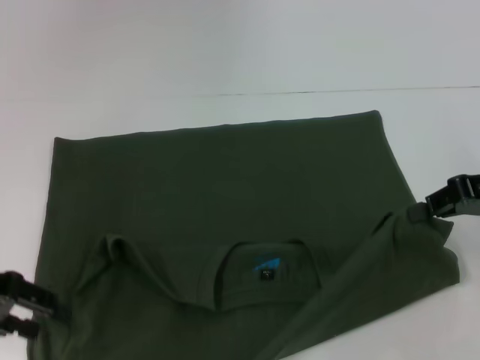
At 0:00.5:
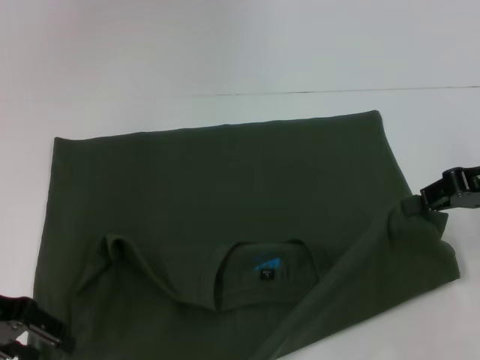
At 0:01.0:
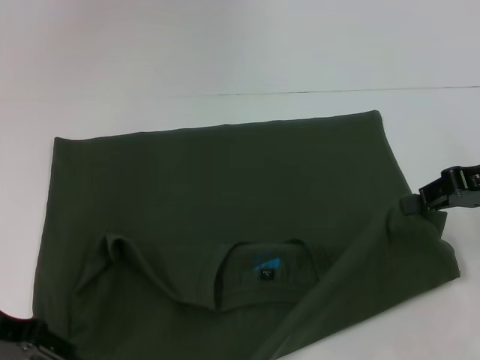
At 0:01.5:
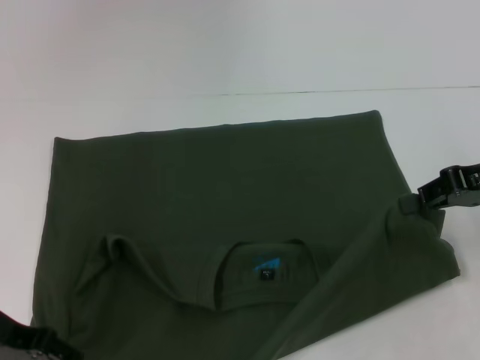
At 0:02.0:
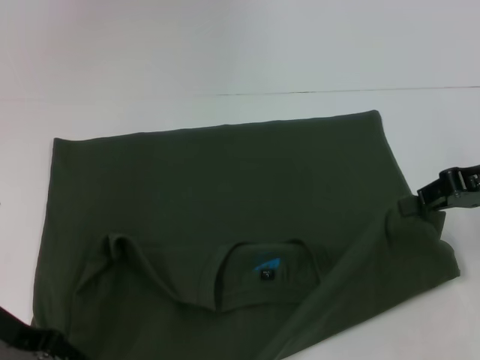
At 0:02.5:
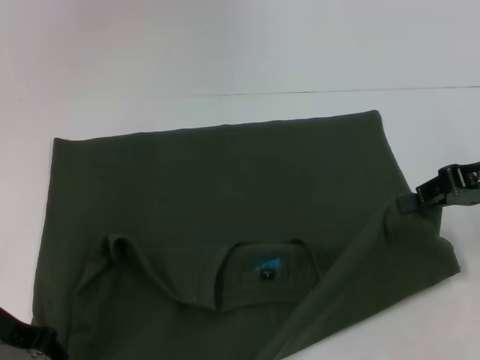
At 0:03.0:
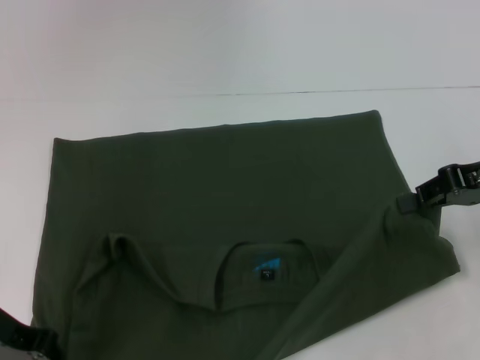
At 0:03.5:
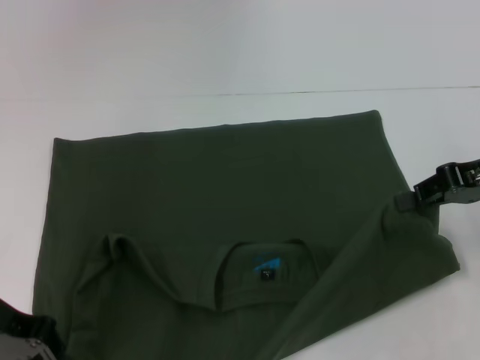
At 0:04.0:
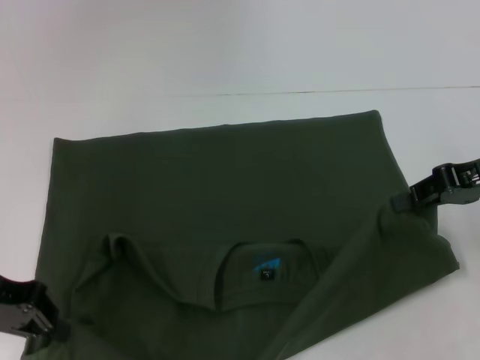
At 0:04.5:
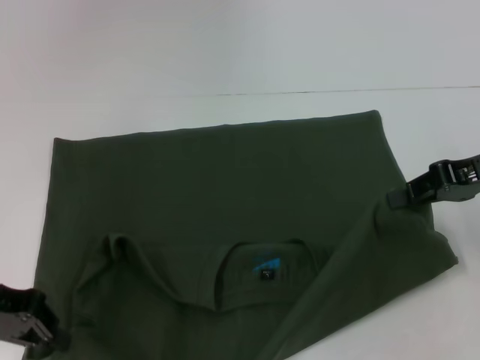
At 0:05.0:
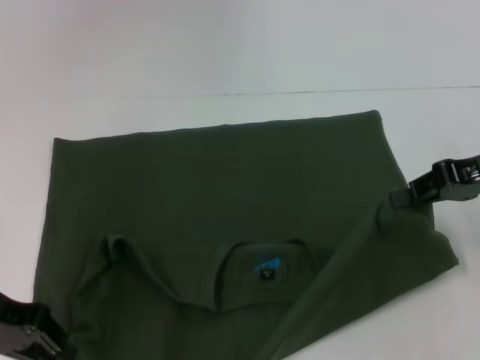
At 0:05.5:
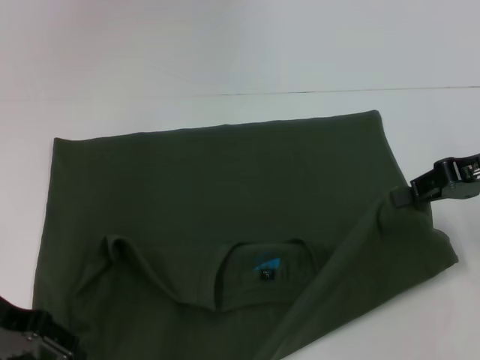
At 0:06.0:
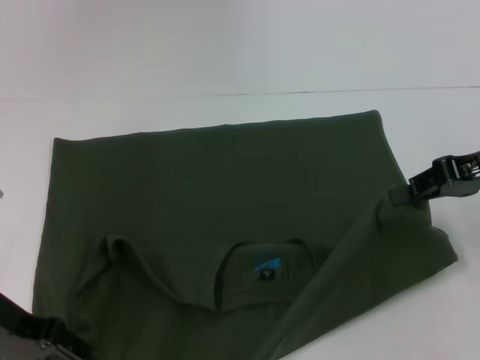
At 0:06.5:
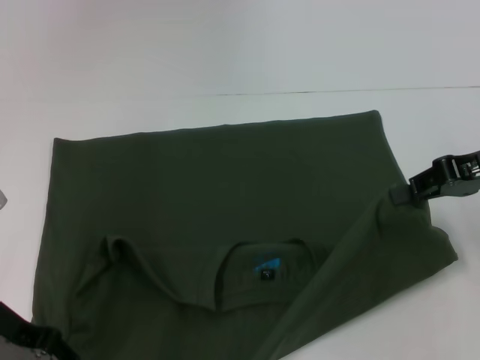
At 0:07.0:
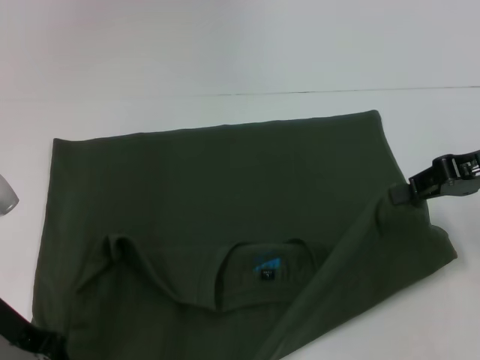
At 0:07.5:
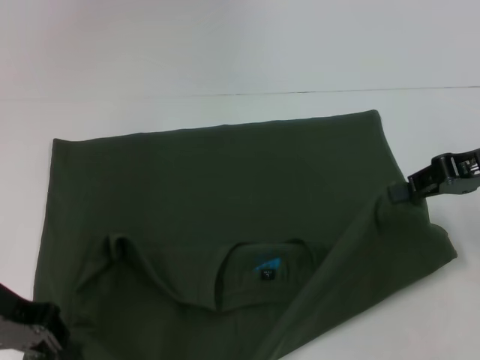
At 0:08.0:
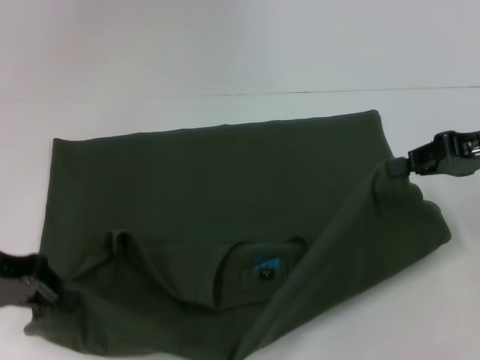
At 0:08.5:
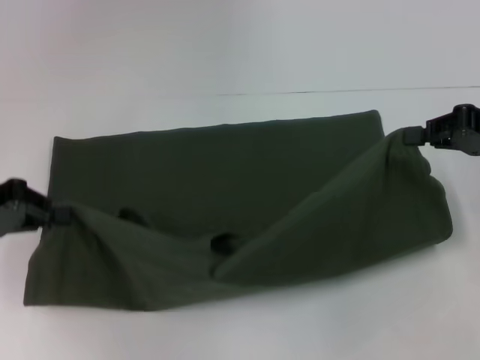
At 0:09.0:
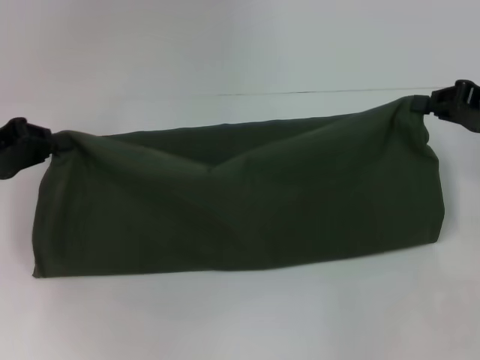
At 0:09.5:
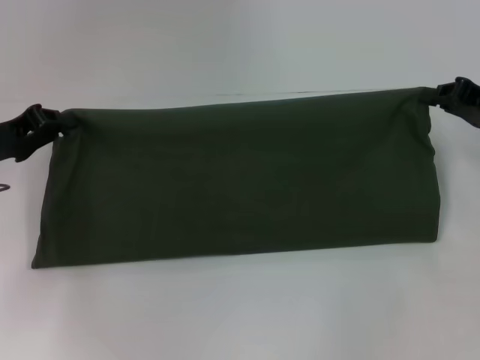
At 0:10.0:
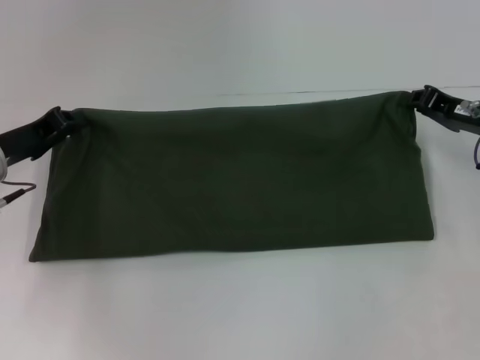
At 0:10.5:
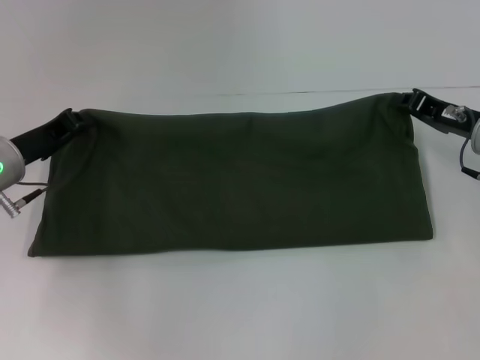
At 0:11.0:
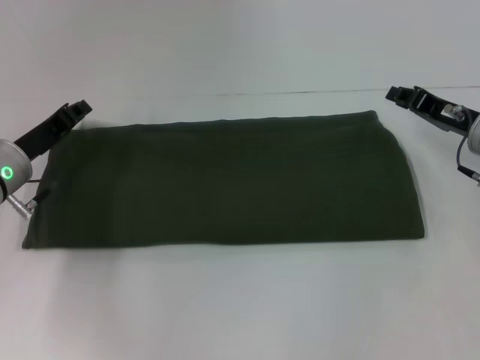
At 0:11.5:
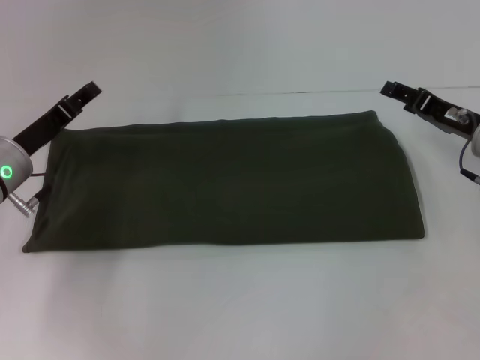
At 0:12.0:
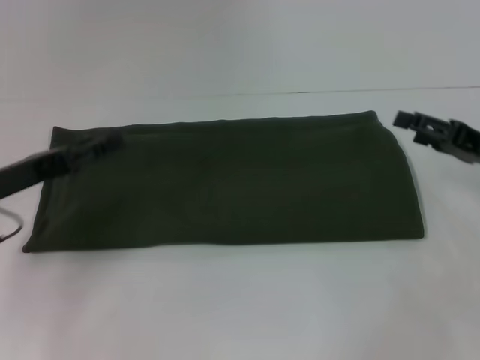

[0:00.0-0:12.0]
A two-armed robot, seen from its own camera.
Step, 0:00.0 to 0:11.0: Fold the clothes with your right hand.
0:00.0 to 0:02.0: The left gripper changes place by some 5 cm.
0:02.0 to 0:04.0: The left gripper closes.
0:04.0 to 0:06.0: The left gripper opens its fingers.
0:06.0 to 0:08.0: The left gripper closes its fingers.
0:08.0 to 0:10.0: The right gripper goes about 10 cm downward. The left gripper heads forward, covering approximately 5 cm.
0:10.0 to 0:12.0: The right gripper changes place by roughly 5 cm, and opens; the left gripper shifts about 5 cm backward, and opens its fingers.

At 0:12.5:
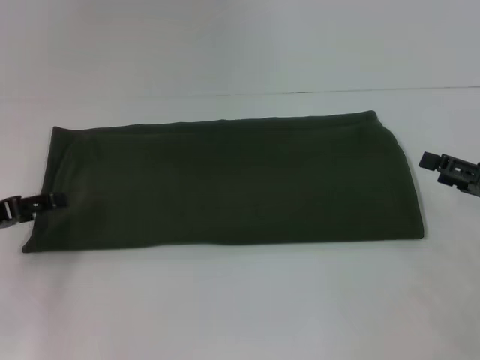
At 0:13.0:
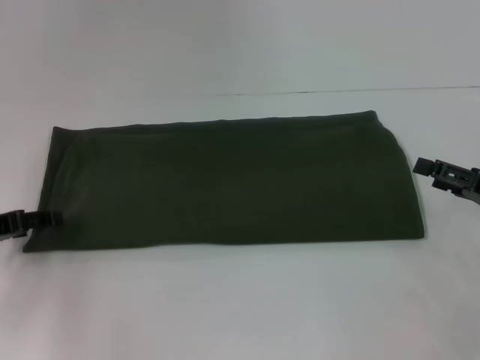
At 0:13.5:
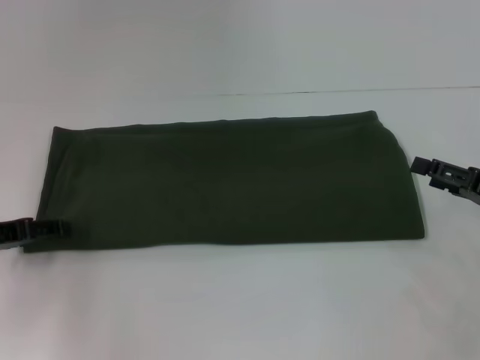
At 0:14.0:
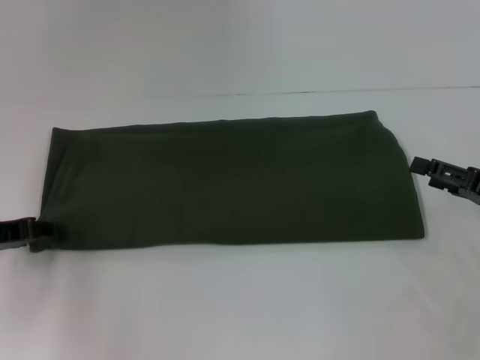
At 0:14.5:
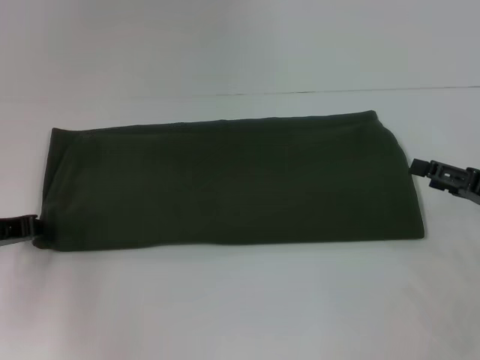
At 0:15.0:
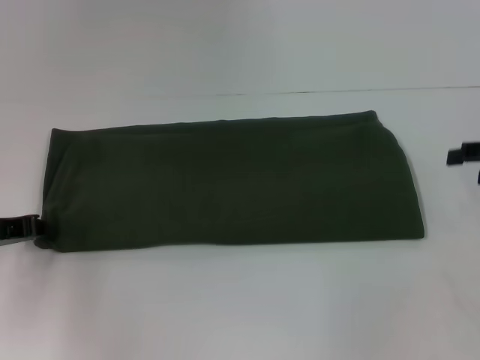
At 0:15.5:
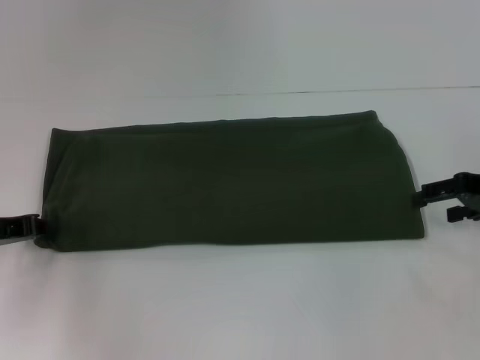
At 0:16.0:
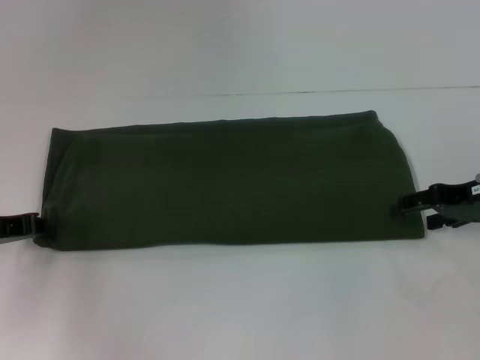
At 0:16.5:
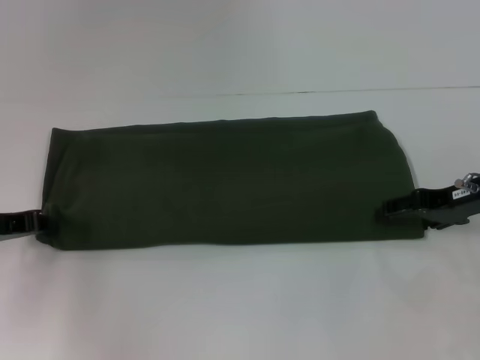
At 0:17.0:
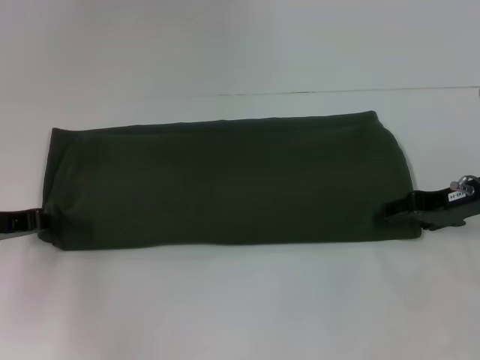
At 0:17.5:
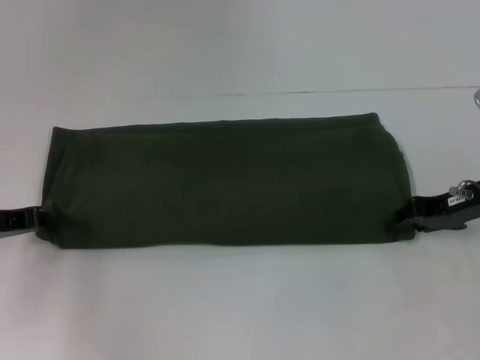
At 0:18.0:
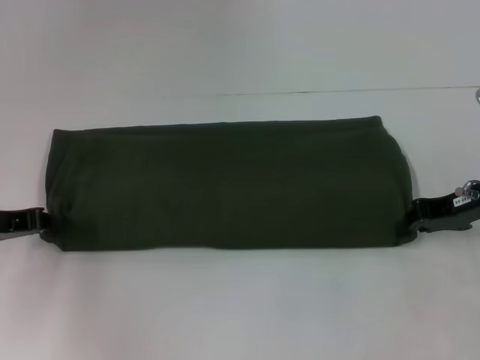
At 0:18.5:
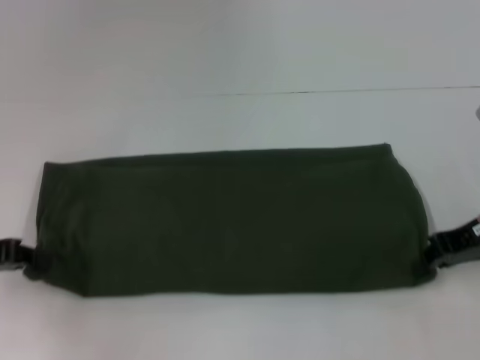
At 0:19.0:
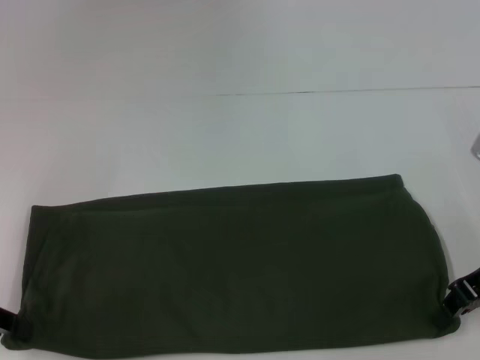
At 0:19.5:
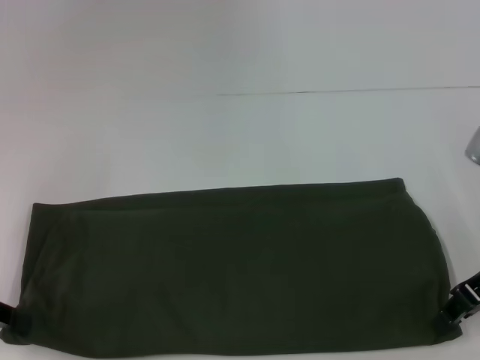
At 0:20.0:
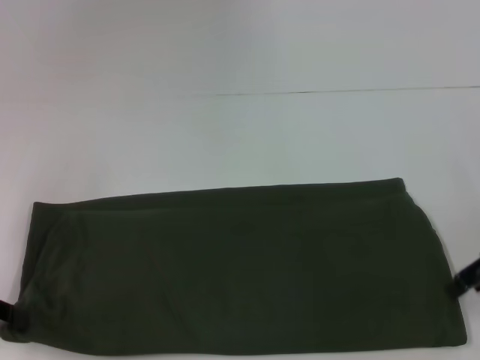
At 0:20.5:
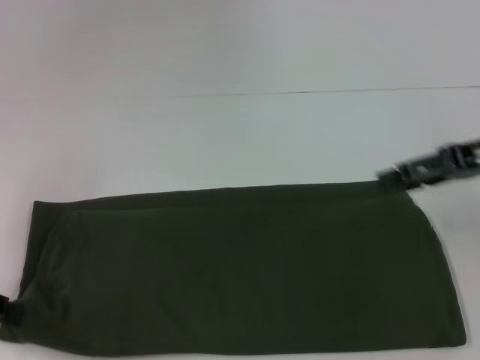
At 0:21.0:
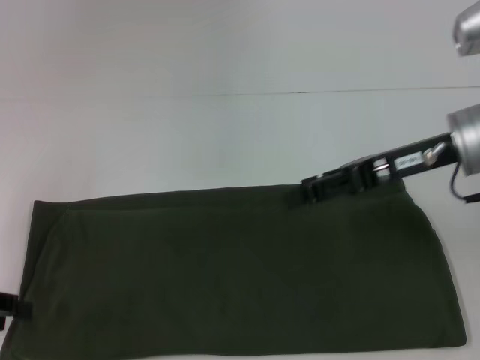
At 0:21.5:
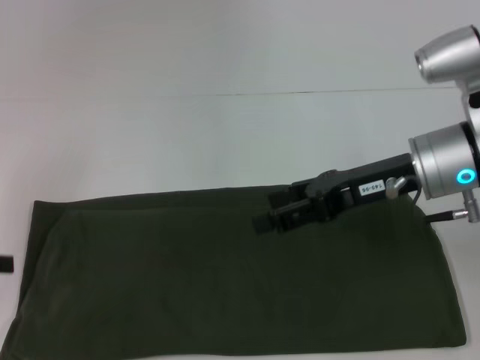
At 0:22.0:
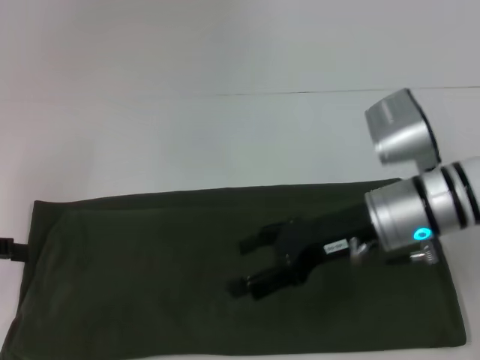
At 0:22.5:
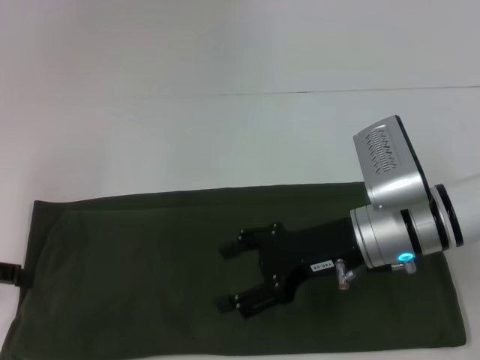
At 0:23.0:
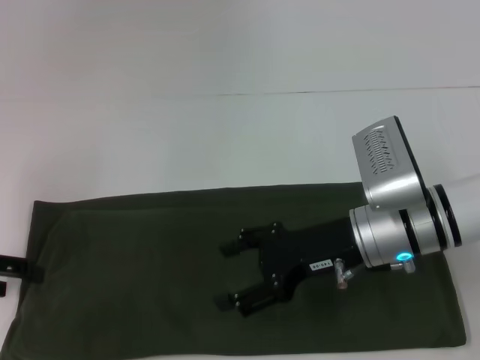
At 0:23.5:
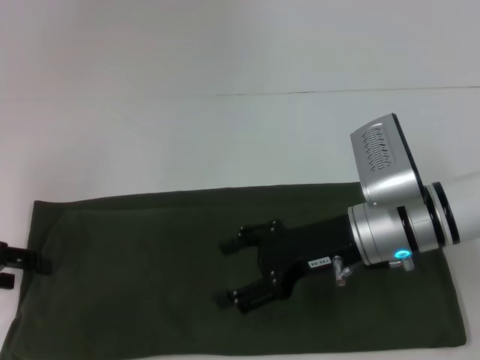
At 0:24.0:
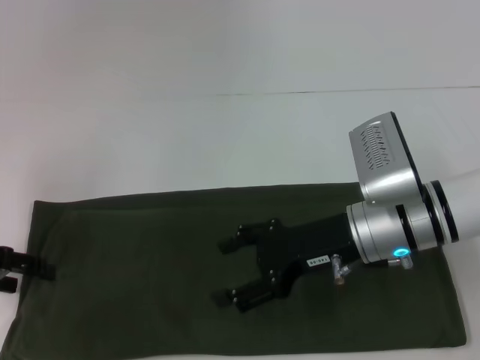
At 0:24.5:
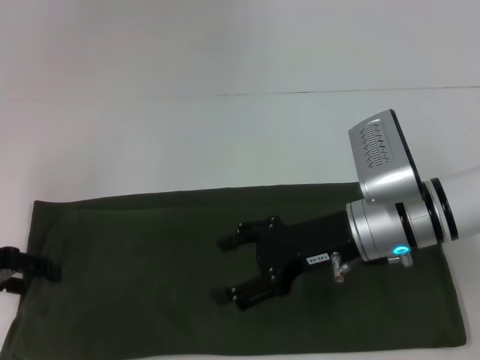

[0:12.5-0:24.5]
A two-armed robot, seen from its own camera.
0:12.5 to 0:14.5: The left gripper closes up.
0:14.5 to 0:16.5: The right gripper is displaced forward and to the left by about 10 cm.
0:16.5 to 0:18.5: The right gripper closes its fingers.
0:18.5 to 0:20.5: The right gripper is displaced upward by some 5 cm, and opens.
0:20.5 to 0:22.5: The right gripper is displaced to the left and downward by about 20 cm. Meanwhile the left gripper opens up.
0:22.5 to 0:24.5: The grippers make only small movements.

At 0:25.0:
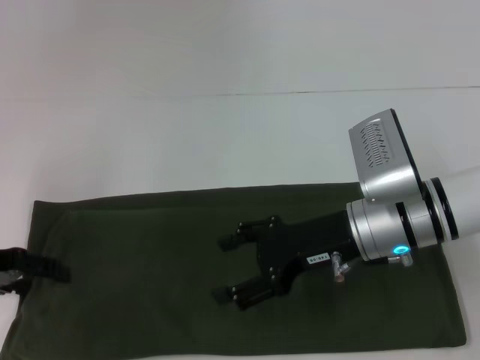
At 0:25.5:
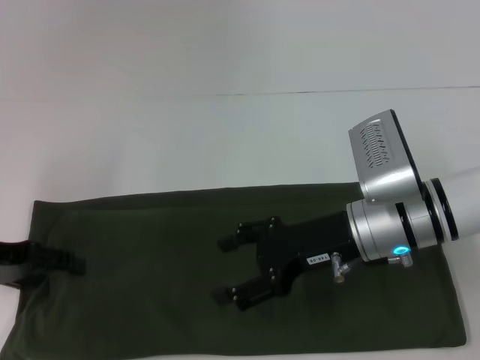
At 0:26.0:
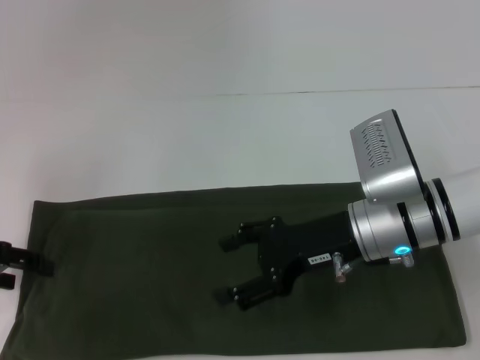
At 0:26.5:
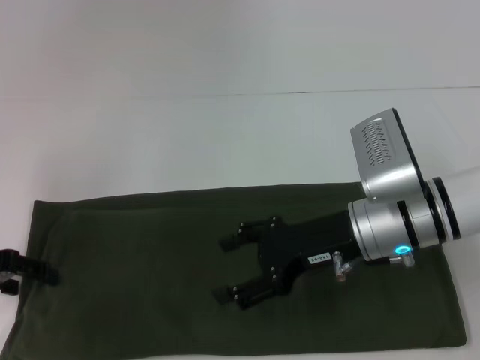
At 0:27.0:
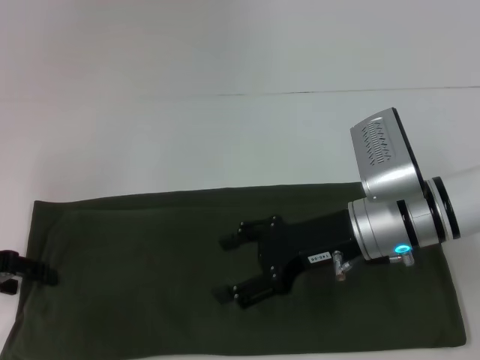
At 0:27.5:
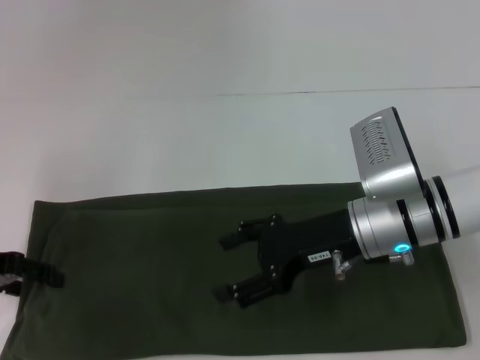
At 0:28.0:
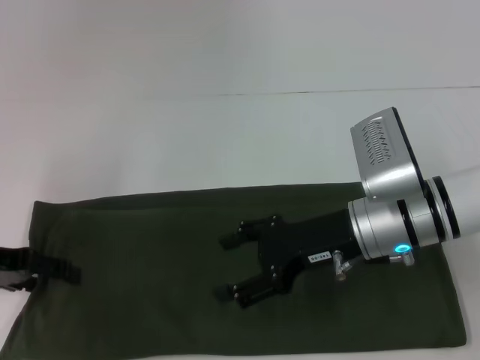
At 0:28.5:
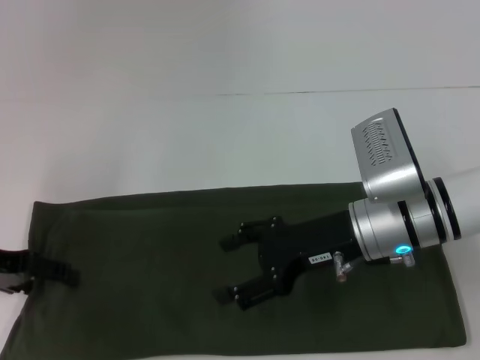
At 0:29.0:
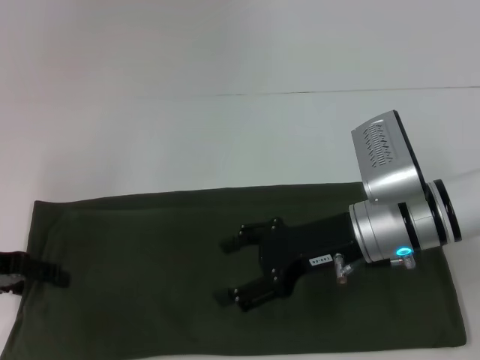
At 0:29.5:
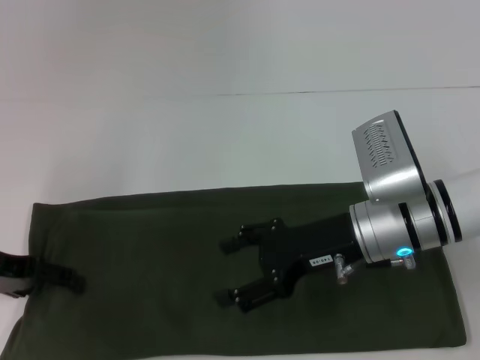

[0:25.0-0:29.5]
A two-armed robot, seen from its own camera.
0:25.0 to 0:29.5: The grippers make only small movements.
